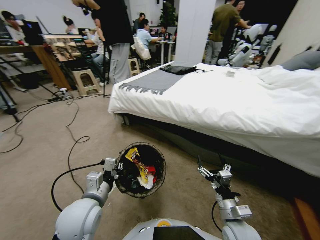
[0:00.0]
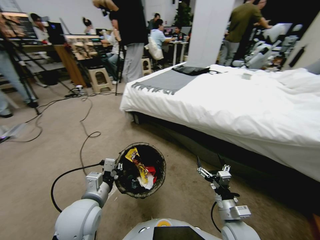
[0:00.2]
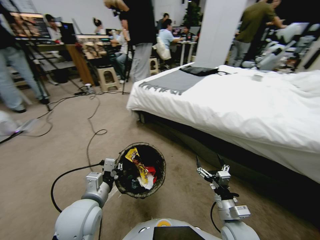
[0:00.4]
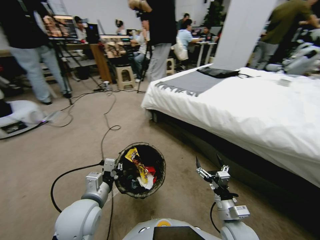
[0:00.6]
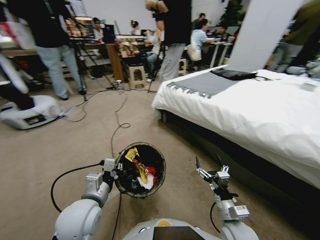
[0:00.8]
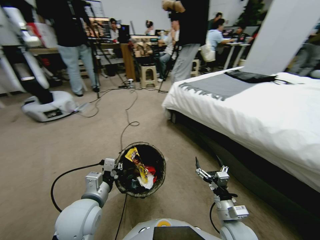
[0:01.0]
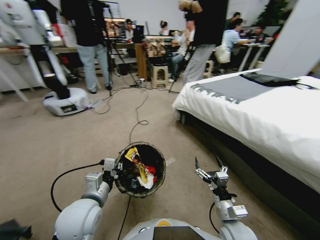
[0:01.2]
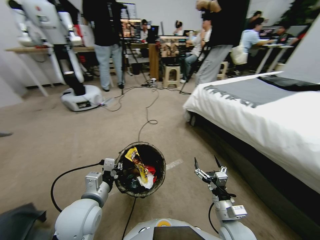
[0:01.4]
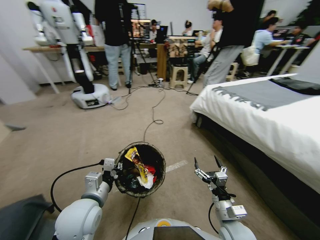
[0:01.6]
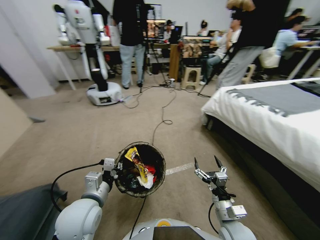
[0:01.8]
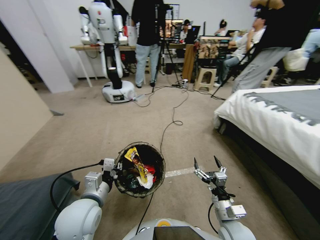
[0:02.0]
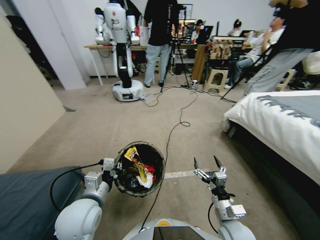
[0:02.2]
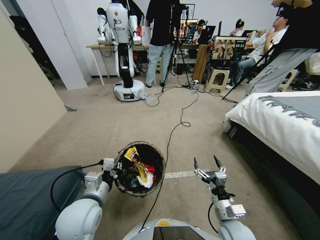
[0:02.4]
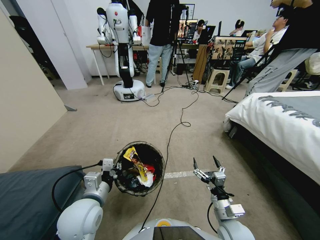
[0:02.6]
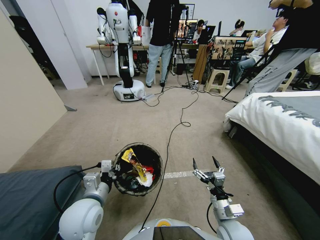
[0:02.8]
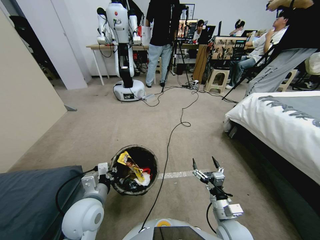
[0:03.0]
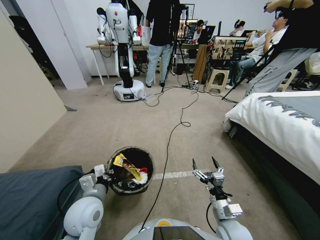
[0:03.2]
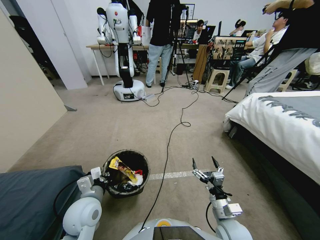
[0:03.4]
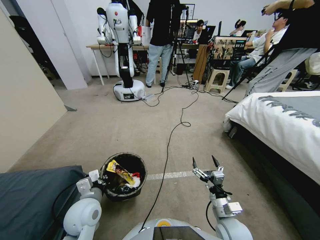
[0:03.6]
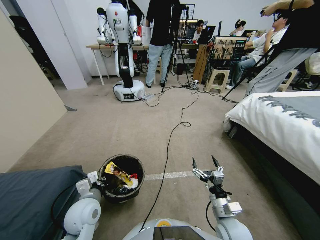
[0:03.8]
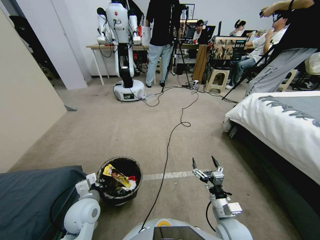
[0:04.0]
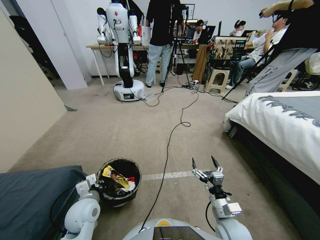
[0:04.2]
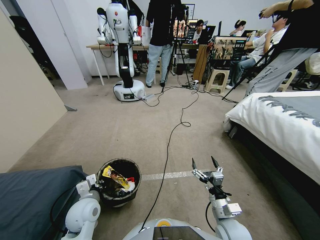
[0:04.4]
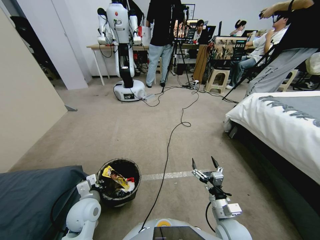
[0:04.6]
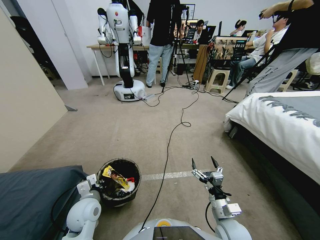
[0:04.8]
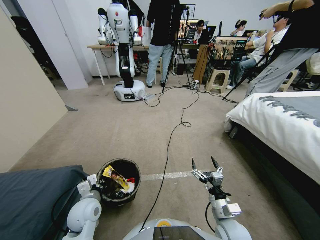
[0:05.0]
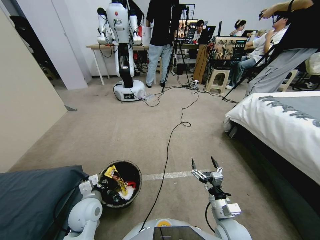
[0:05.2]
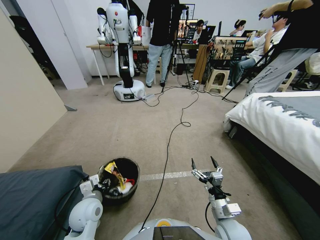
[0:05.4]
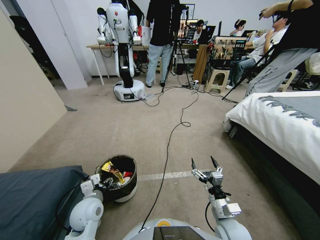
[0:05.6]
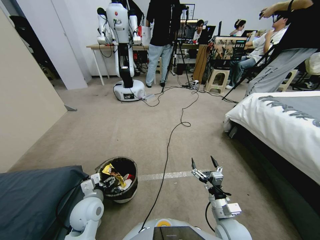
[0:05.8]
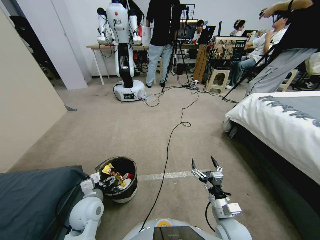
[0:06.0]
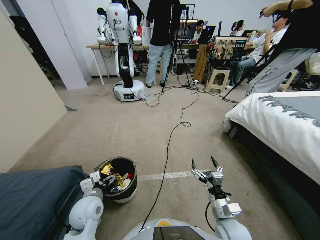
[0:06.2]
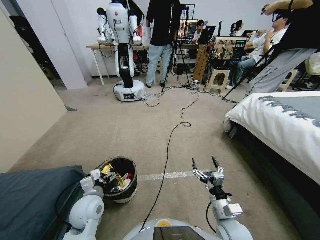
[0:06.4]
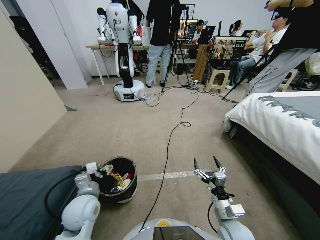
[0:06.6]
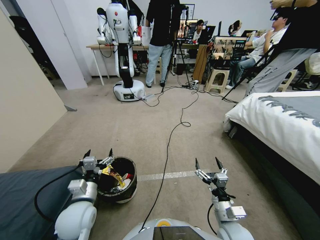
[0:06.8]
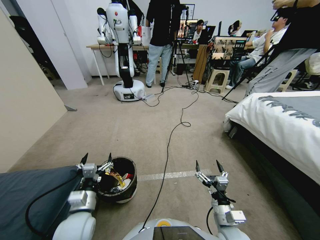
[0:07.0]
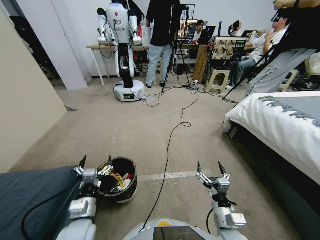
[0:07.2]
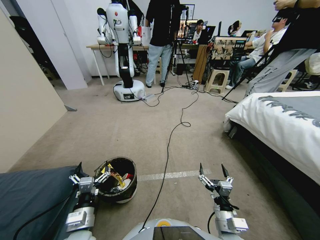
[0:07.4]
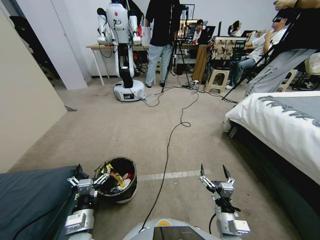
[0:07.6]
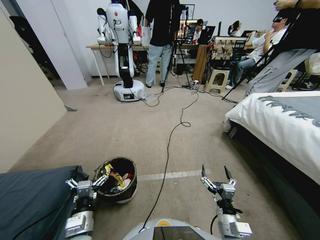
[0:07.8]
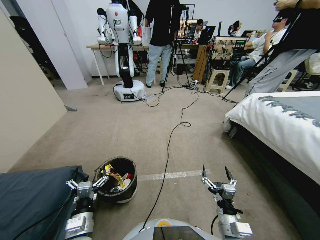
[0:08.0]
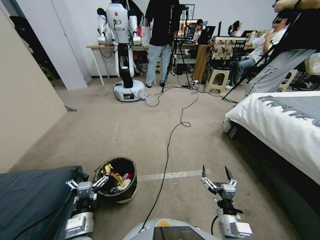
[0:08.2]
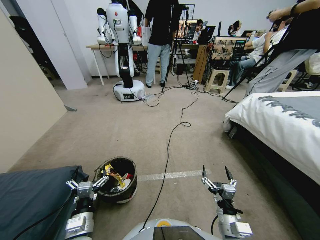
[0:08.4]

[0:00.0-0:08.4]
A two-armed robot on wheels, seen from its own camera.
Task of the whole recording: Pick up the trash bin, then pick up the garbage from the floor and place it into the trash bin.
0:02.8 to 0:04.2: The left gripper shifts roughly 5 cm downward.
0:04.2 to 0:05.6: The left gripper opens.
0:07.0 to 0:08.4: The left gripper shifts roughly 10 cm backward.

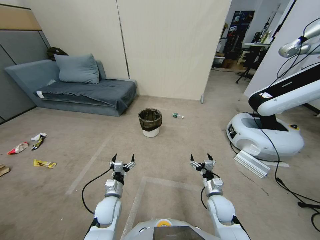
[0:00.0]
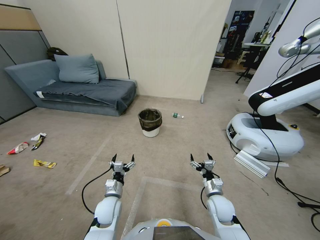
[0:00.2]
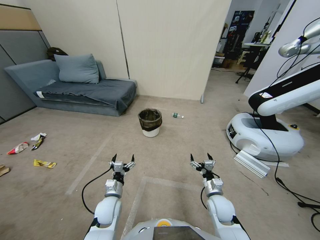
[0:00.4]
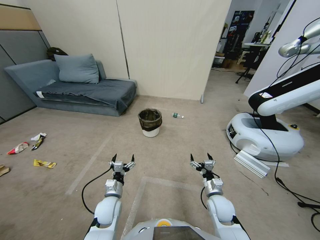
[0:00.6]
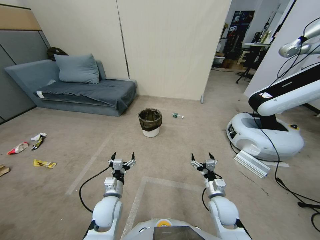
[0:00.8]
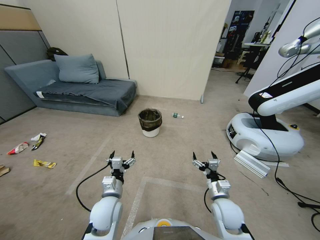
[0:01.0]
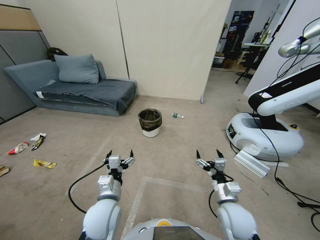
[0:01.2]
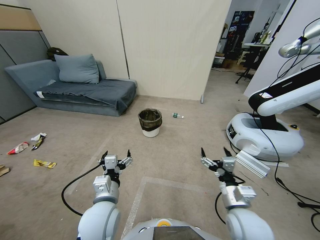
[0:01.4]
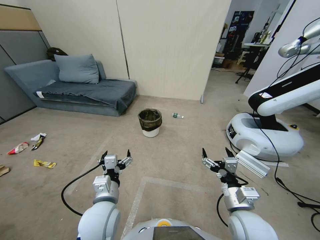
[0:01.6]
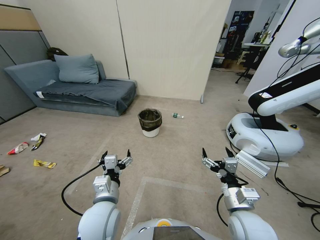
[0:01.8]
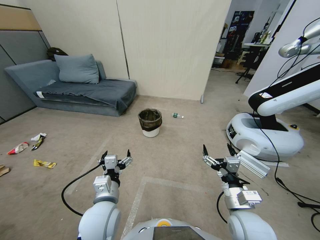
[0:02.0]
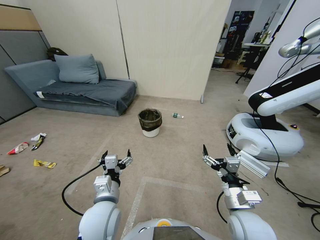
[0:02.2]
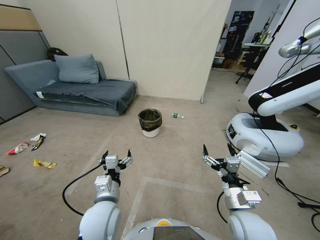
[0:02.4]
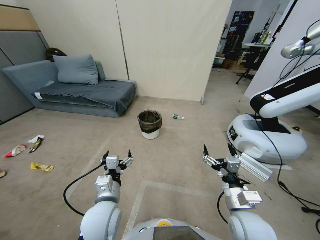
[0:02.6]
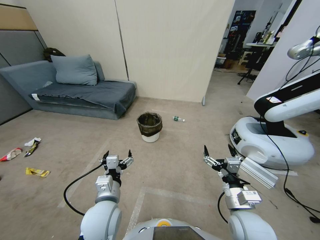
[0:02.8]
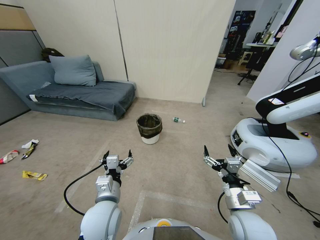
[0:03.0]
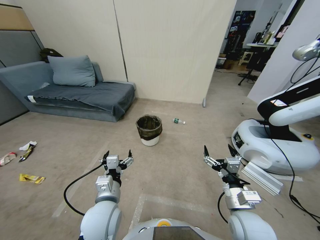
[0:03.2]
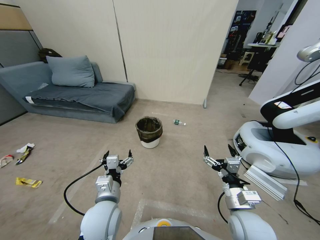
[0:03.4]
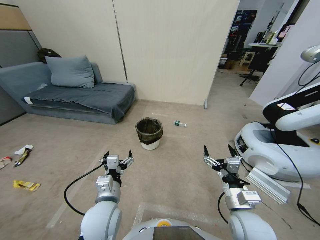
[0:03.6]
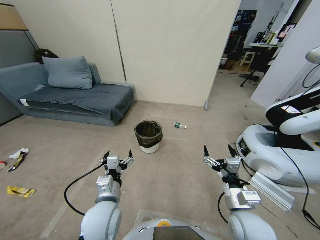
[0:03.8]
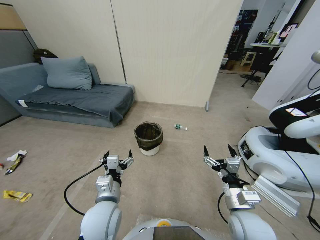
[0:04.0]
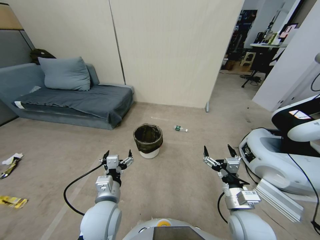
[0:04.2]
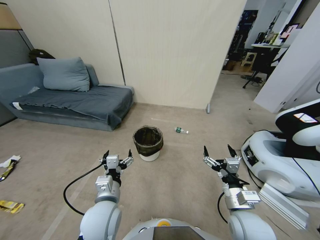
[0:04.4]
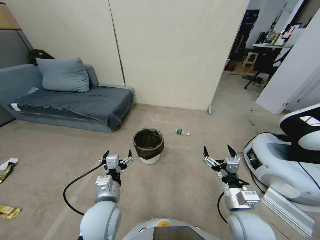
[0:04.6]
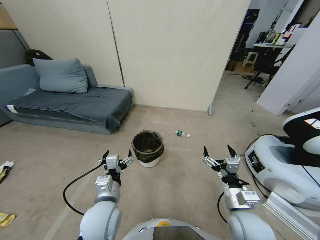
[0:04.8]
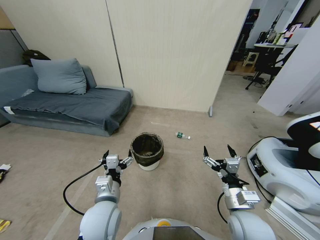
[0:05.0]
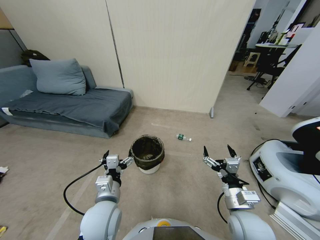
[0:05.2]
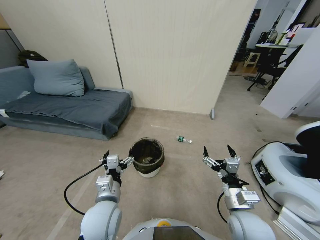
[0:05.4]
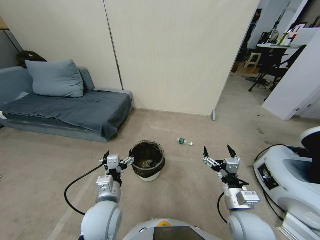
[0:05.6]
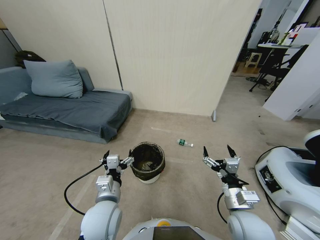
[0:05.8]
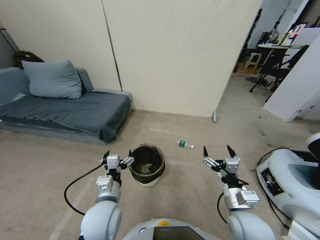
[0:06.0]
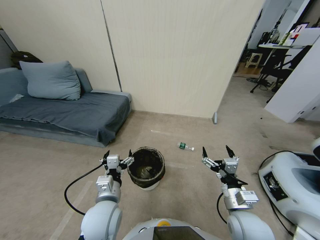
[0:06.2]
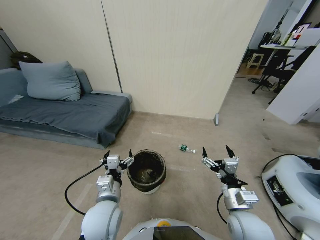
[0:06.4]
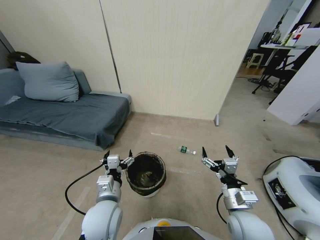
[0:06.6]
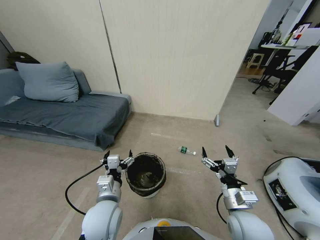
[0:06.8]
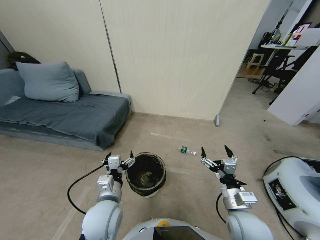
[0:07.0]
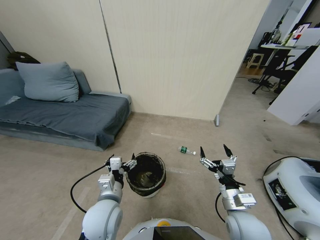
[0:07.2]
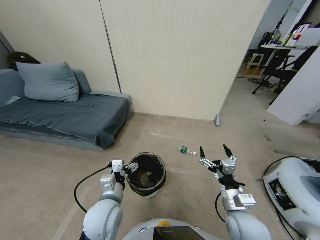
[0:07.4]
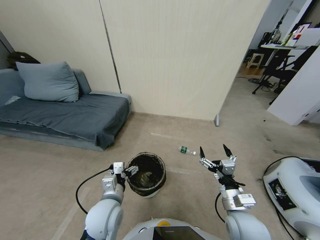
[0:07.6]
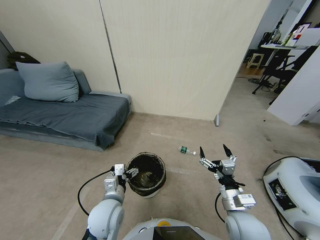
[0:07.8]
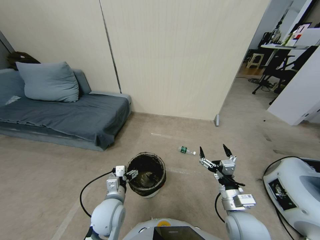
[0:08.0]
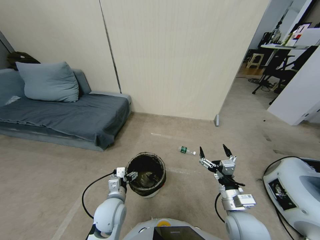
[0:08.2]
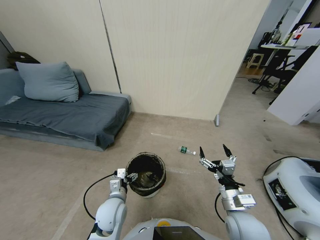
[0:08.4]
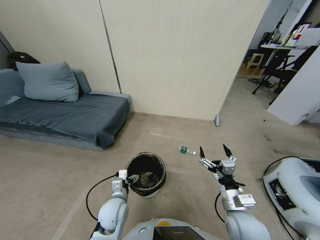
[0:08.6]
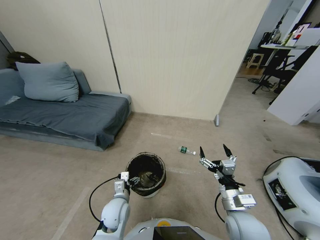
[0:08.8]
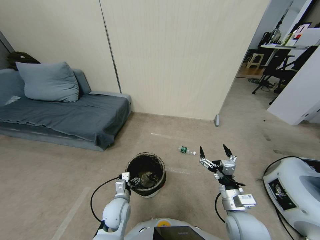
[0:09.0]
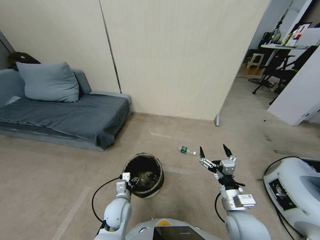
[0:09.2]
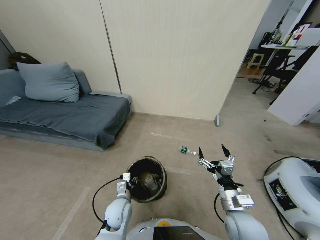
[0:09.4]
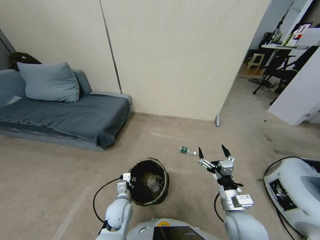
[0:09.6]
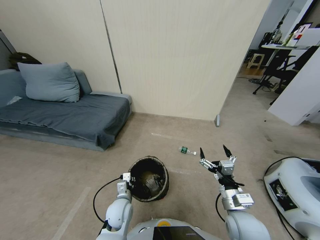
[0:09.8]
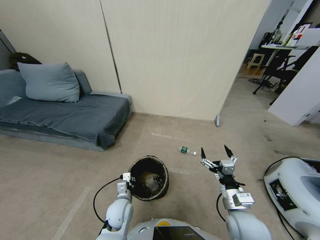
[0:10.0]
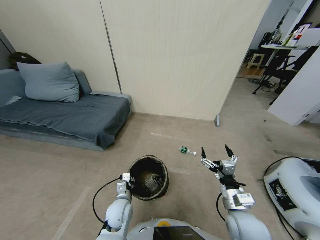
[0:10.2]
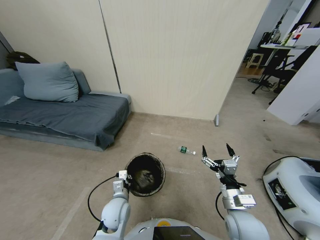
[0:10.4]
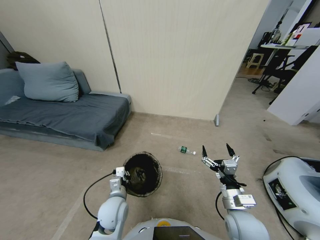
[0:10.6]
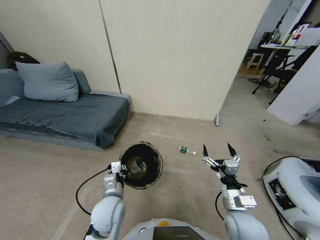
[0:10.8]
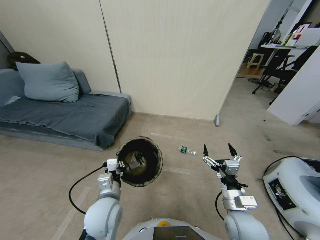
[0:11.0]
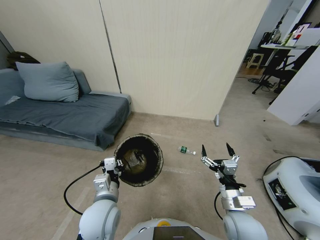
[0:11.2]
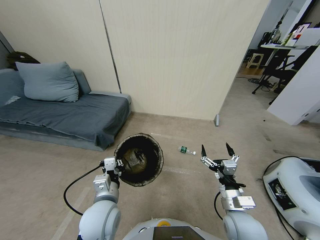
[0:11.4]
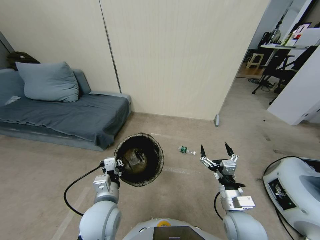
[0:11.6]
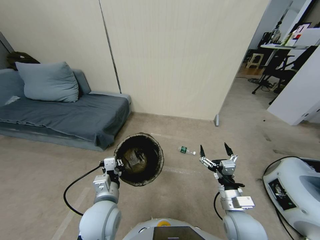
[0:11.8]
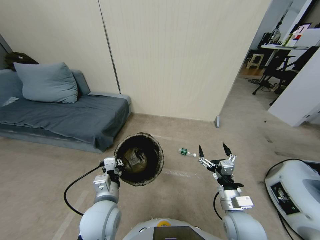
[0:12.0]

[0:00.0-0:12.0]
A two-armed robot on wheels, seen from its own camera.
Task of the whole recording: Pick up the trash bin, then pick up the garbage from the floor and place it into the trash bin.
0:06.0 to 0:07.6: The grippers stay close to where they were, moving slightly.
0:07.6 to 0:09.0: The left gripper heads downward, covering about 10 cm.
0:09.0 to 0:10.4: The left gripper closes up.
0:10.4 to 0:12.0: The left gripper heads upward, covering about 10 cm.

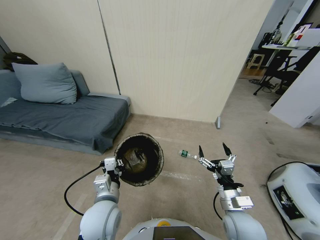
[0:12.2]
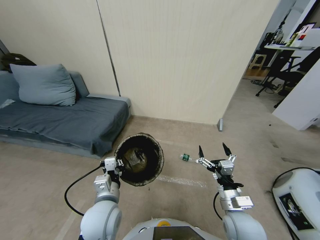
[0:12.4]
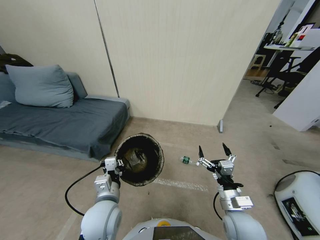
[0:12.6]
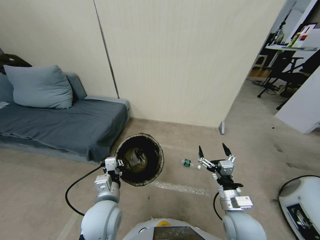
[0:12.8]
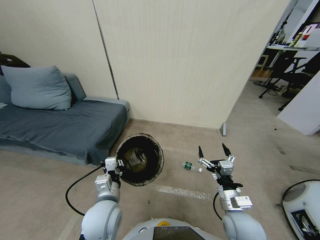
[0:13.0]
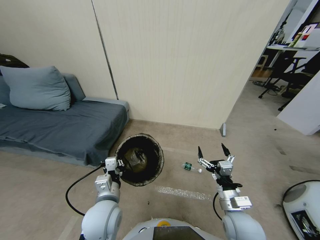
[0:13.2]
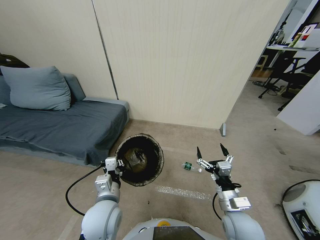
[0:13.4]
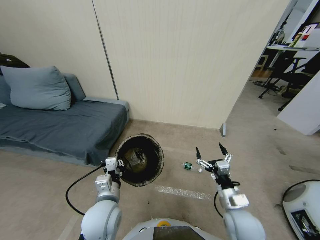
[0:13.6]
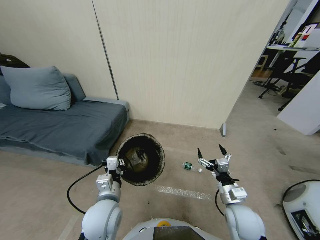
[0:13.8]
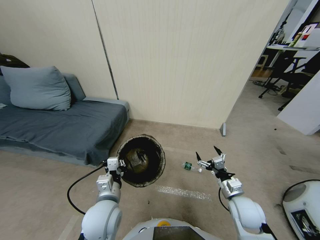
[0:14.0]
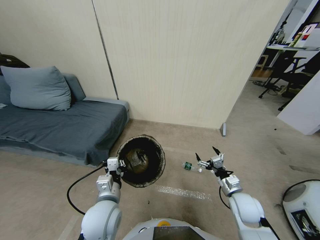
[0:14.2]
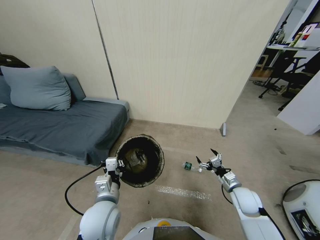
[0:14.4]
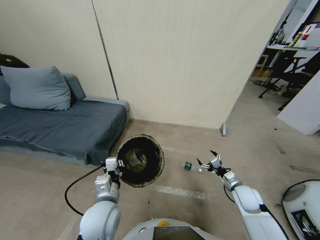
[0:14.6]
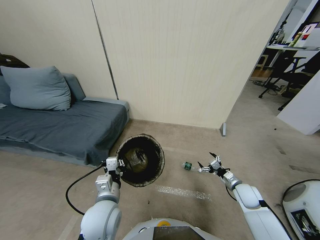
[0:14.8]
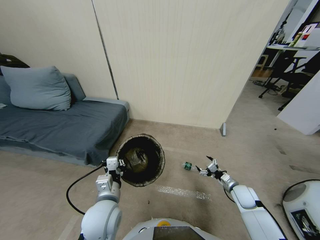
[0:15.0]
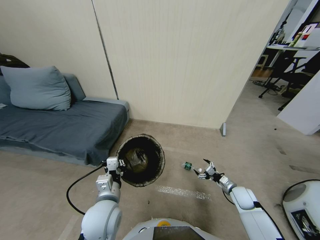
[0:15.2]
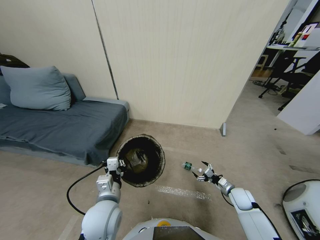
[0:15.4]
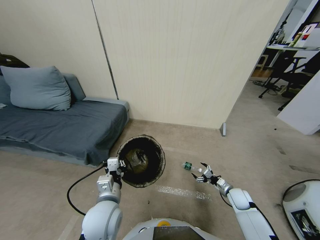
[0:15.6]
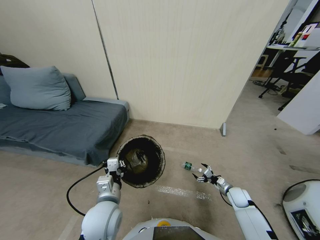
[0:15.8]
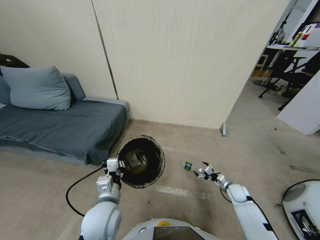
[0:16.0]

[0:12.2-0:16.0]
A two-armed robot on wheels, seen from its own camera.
Task of the whole recording: Pick up the trash bin, then pick up the garbage from the floor and place it into the trash bin.
0:13.4 to 0:14.8: The right gripper is displaced to the right, forward and downward by approximately 20 cm.
0:14.8 to 0:16.0: The right gripper is displaced downward by approximately 10 cm.
